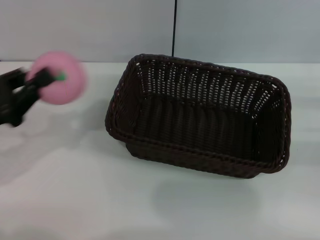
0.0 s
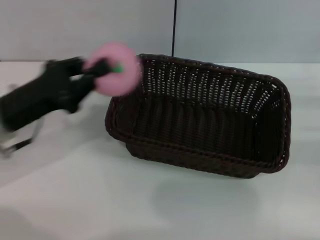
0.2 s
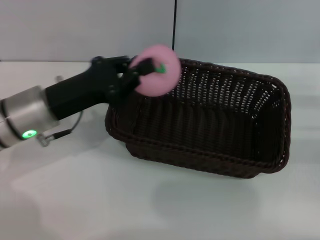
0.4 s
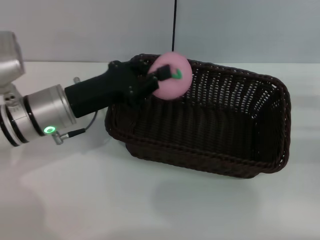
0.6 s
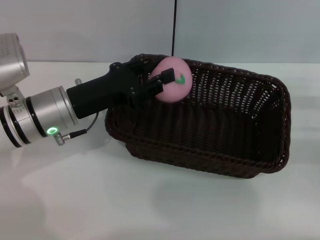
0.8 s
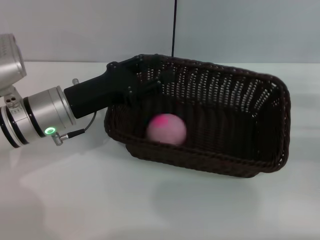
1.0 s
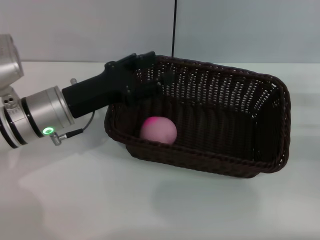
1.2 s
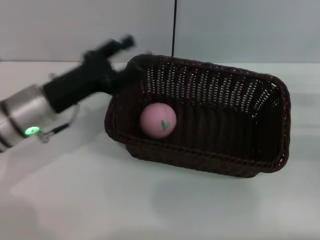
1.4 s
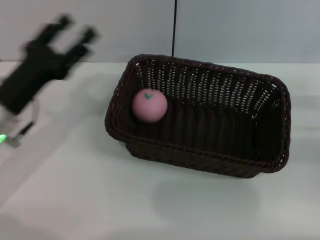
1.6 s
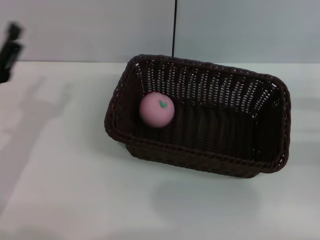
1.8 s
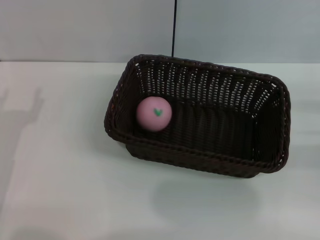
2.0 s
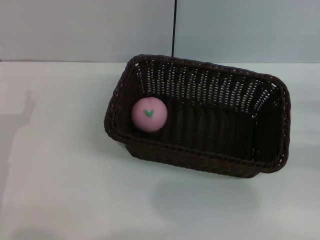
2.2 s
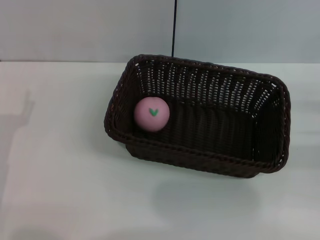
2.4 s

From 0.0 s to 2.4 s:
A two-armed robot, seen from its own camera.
Step, from 0.0 s to 1.2 s: Place the peach into the basket with the left gripper.
From 0.0 s to 1.2 s: The left gripper shifts approximately 15 cm to the right and forward, and opens up.
From 1.2 s to 2.4 s: The left gripper heads to the left and backward, covering about 15 cm.
